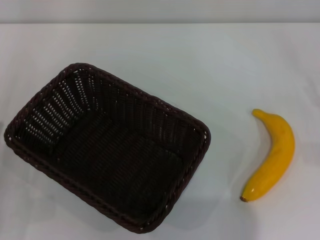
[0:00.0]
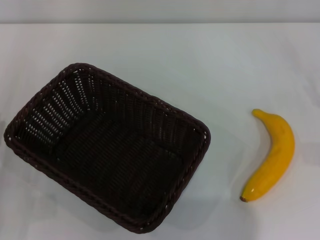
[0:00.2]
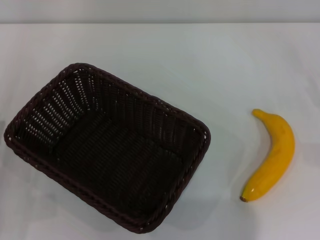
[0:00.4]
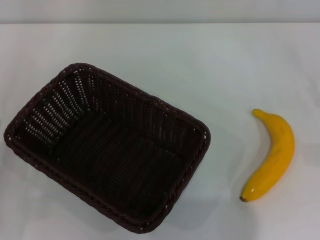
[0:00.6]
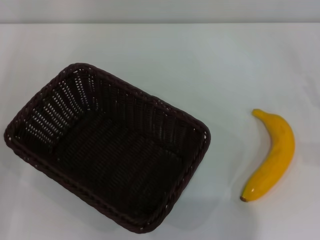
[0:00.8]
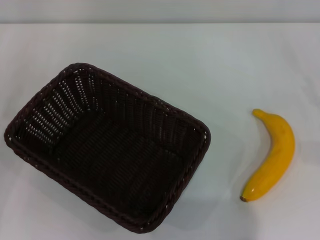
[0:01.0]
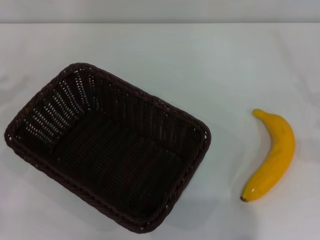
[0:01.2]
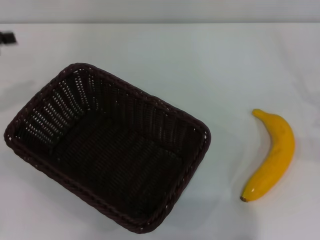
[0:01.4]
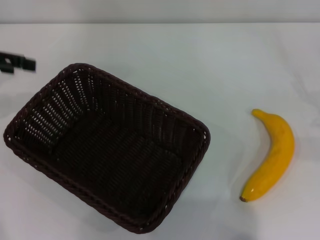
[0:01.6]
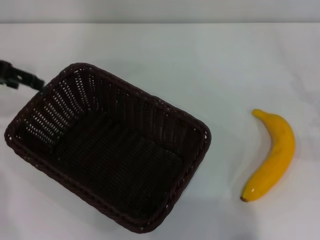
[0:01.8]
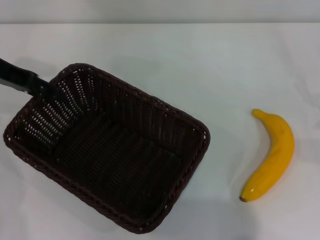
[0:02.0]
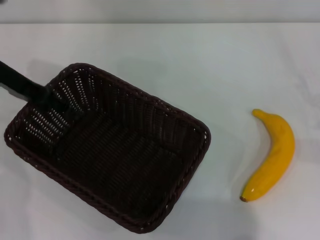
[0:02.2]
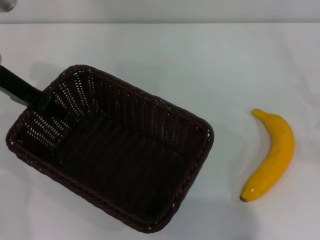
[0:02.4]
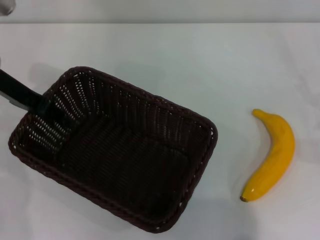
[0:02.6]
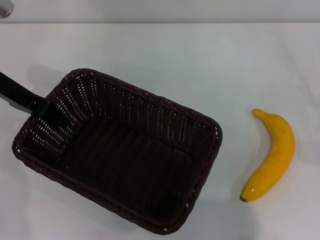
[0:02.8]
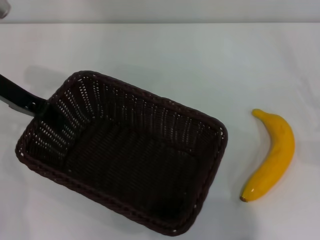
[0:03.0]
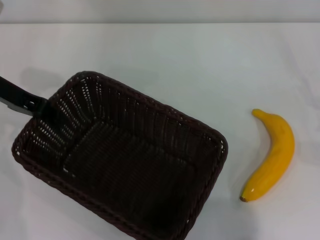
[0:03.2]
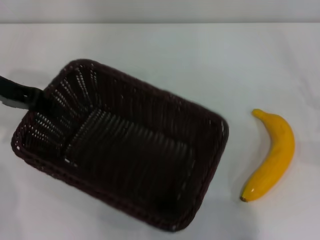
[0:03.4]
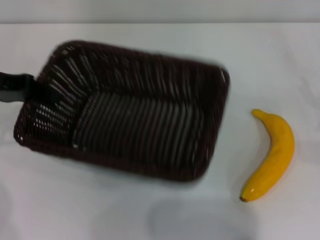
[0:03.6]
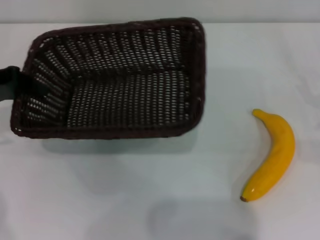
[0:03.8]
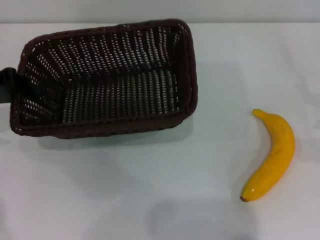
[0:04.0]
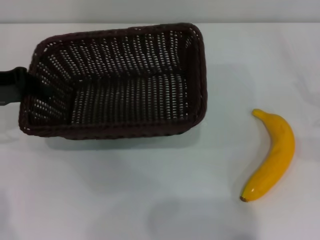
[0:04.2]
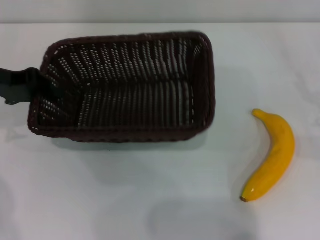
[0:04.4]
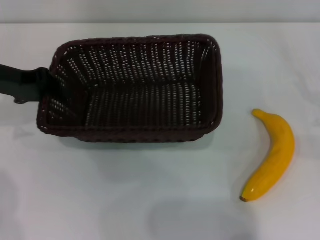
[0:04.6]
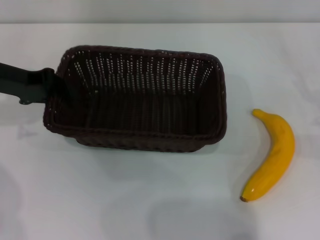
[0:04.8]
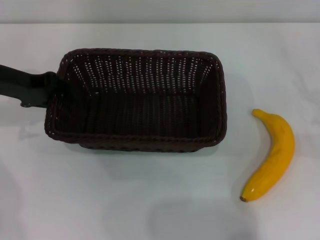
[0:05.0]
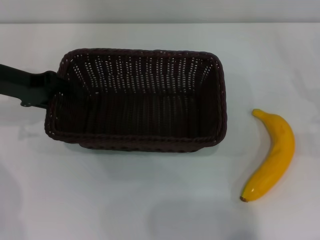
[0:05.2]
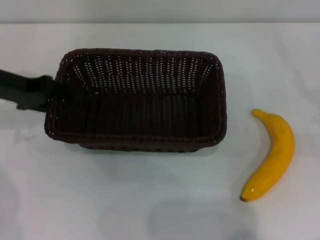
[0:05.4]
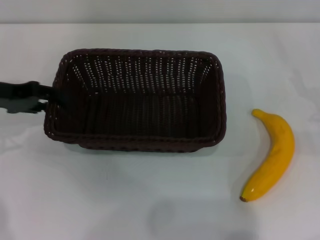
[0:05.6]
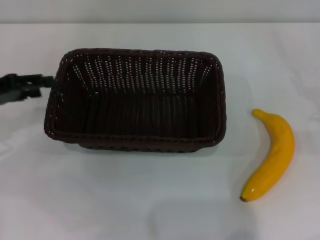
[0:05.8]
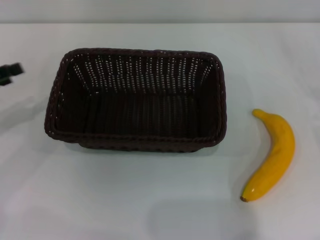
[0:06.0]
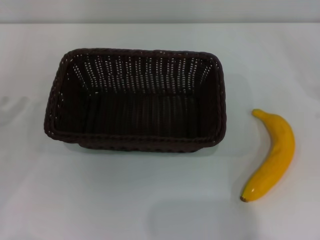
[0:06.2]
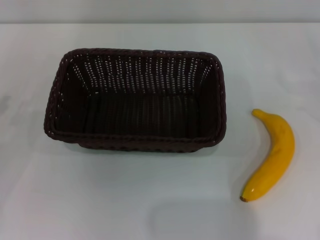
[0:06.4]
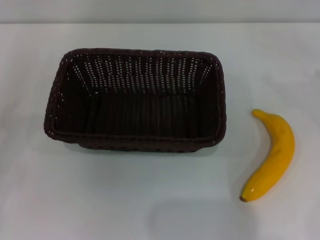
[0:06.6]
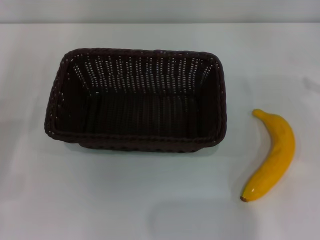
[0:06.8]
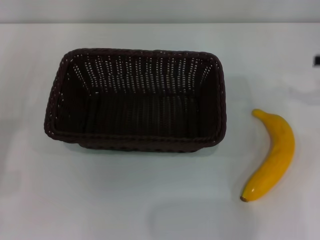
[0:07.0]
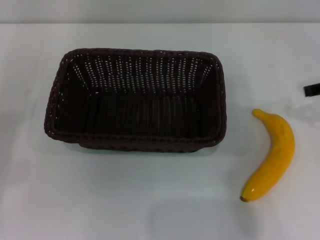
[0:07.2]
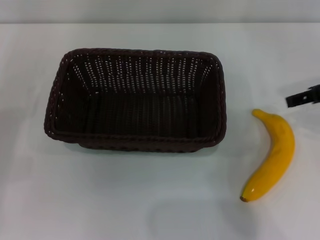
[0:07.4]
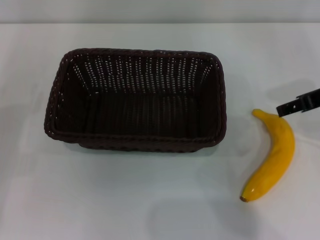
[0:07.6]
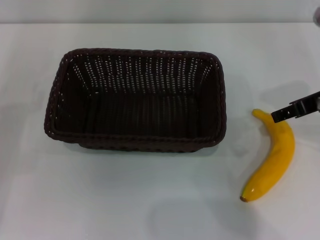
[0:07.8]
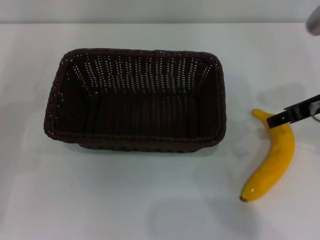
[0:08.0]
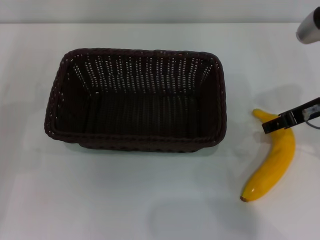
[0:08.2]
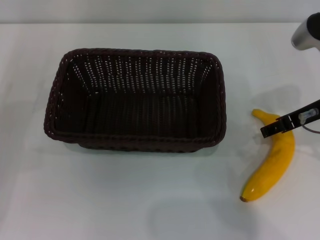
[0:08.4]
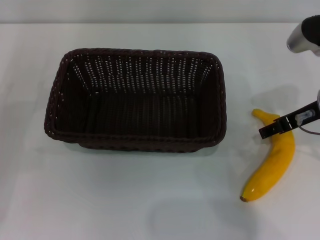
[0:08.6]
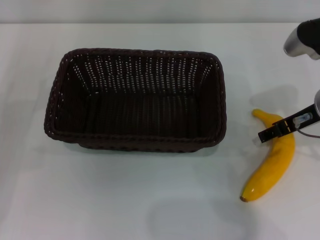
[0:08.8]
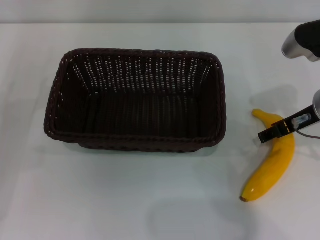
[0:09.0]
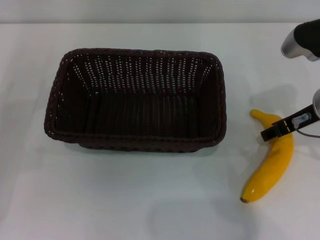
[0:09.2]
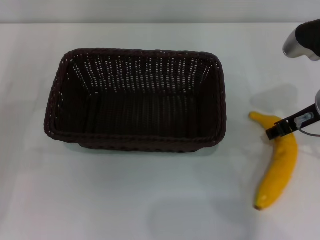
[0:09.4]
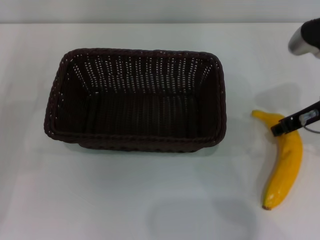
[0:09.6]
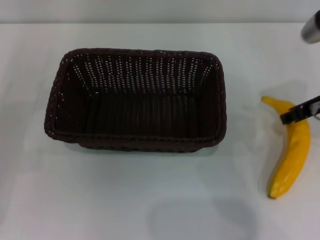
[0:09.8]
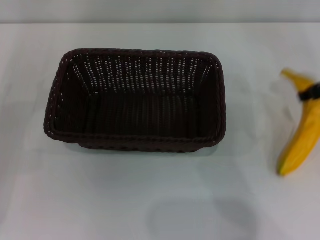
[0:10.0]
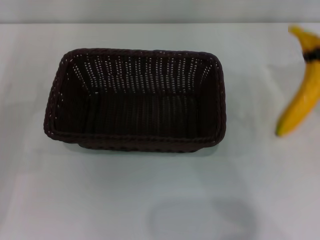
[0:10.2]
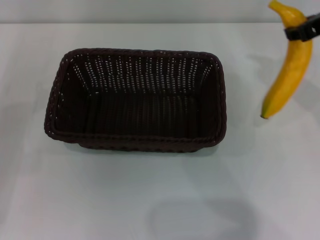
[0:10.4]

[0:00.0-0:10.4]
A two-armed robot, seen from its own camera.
Step, 0:00.0 to 0:03.4: Pick up the dark basket with the left gripper.
Step, 0:03.6 to 0:05.8: Place the dark basket in the center of view with the left gripper.
Step, 0:06.0 to 0:09.8: Pick up the banana with the right gripper.
0:00.0 to 0:01.4: The left gripper travels upward and forward by roughly 20 cm.
0:01.4 to 0:03.0: The left gripper heads to the right, covering about 10 cm, and closes its fingers.
0:04.4 to 0:06.0: The left gripper is displaced backward and to the left by approximately 10 cm, and opens up.
0:06.0 to 0:07.4: The right gripper is displaced upward and to the left by some 20 cm.
0:07.4 to 0:09.0: The right gripper shifts some 5 cm downward.
0:09.0 to 0:10.4: The right gripper heads upward, covering some 10 cm, and closes up.

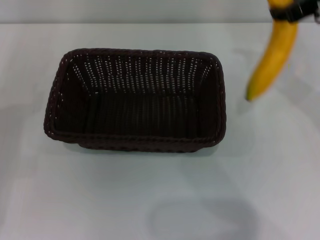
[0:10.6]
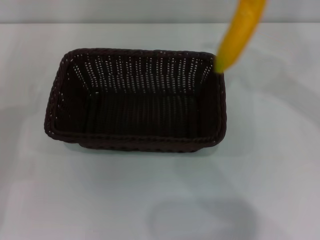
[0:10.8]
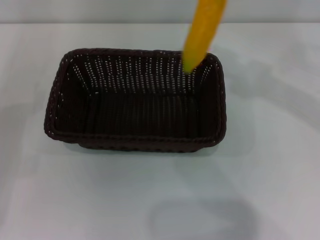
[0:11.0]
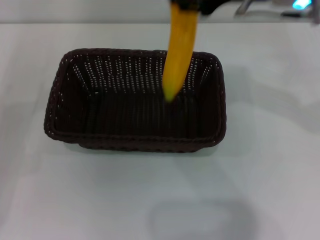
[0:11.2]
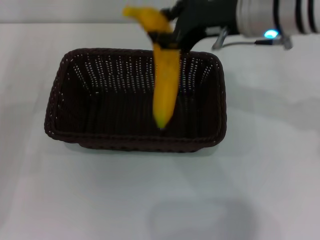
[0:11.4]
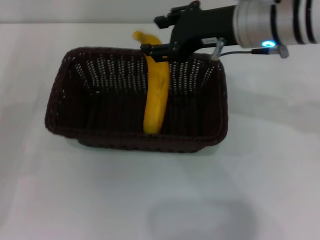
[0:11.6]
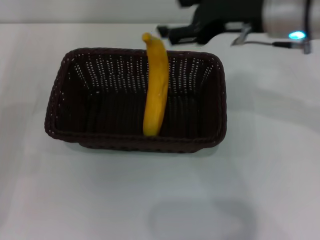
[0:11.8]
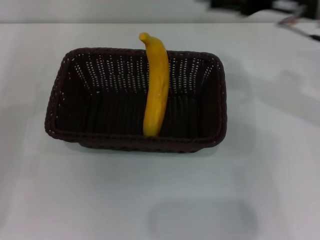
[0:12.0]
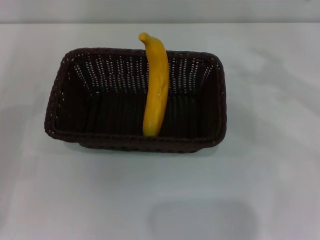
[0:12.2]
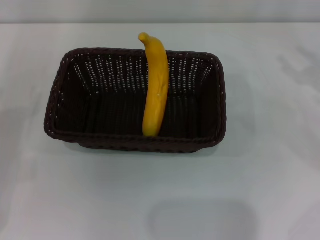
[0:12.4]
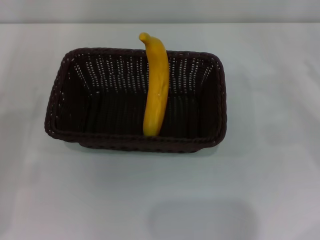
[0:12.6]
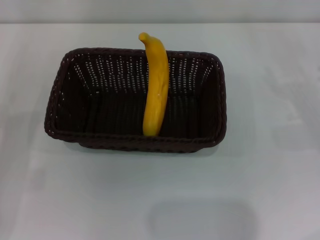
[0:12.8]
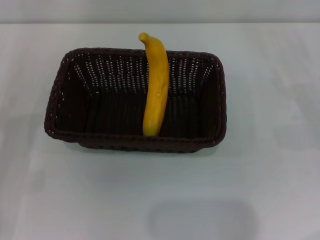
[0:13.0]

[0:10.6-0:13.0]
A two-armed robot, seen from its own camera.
Step, 0:10.6 to 0:11.8: Place the banana into the dark basket with the right gripper.
0:10.6 to 0:11.8: The right gripper is displaced to the left by approximately 5 cm, and opens.
0:11.8 to 0:13.0: The right gripper is displaced to the right and downward by approximately 25 cm.
